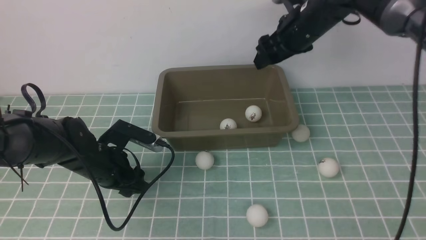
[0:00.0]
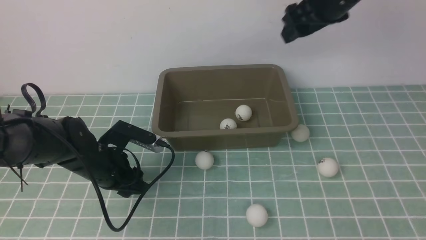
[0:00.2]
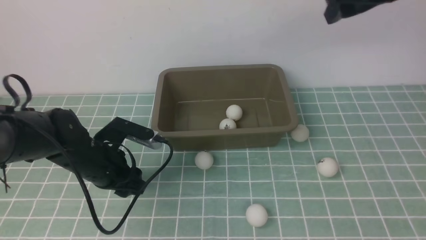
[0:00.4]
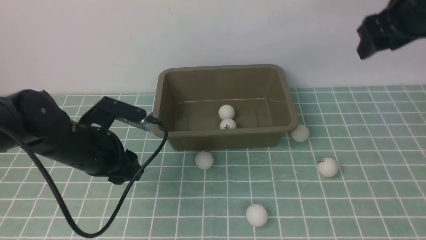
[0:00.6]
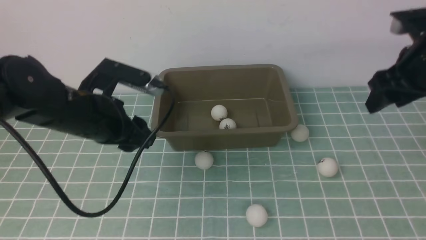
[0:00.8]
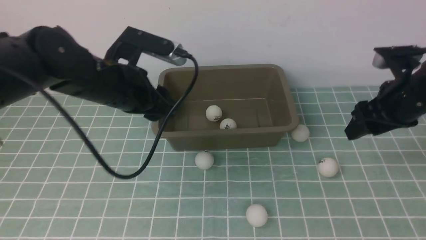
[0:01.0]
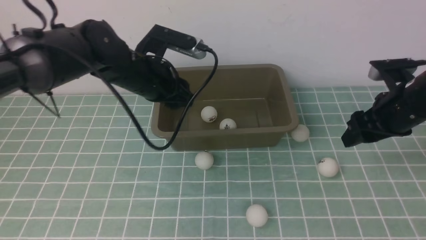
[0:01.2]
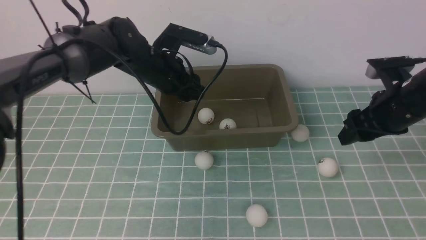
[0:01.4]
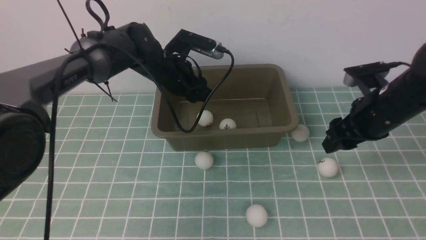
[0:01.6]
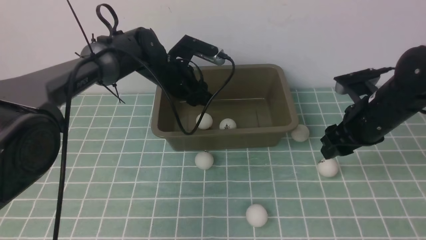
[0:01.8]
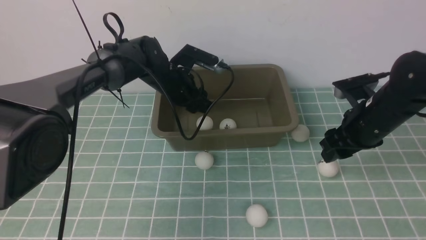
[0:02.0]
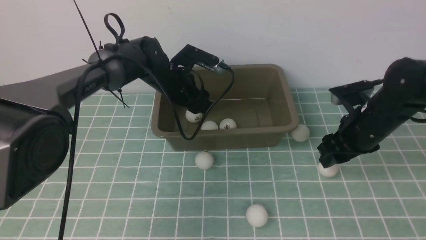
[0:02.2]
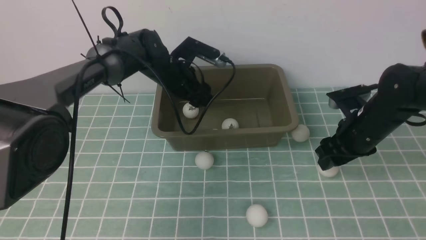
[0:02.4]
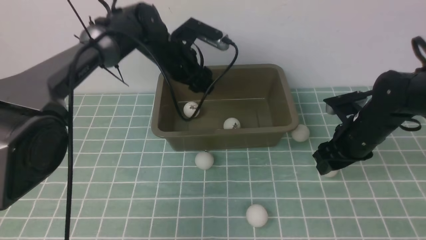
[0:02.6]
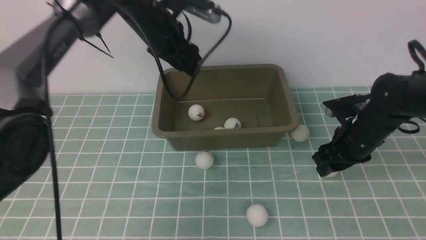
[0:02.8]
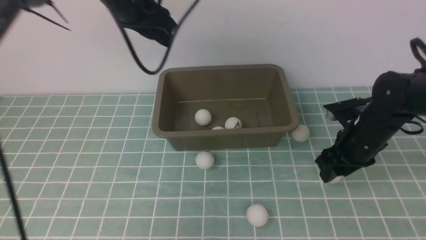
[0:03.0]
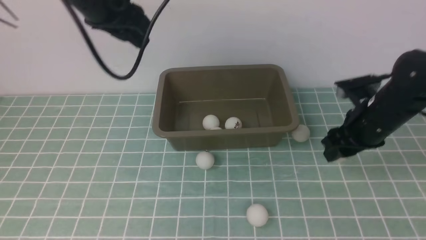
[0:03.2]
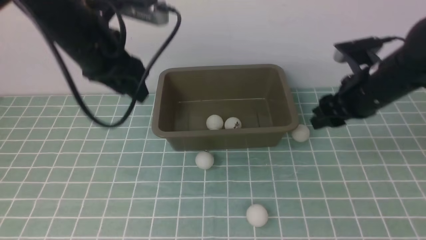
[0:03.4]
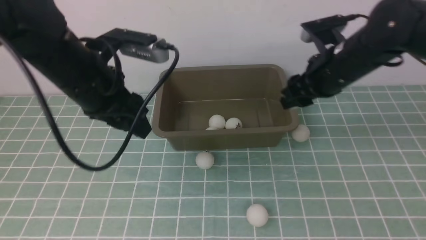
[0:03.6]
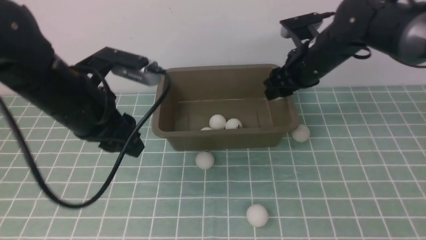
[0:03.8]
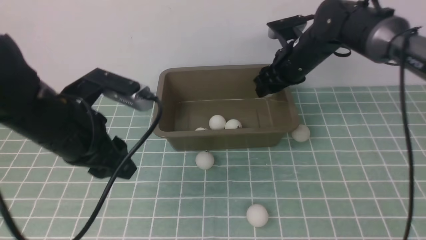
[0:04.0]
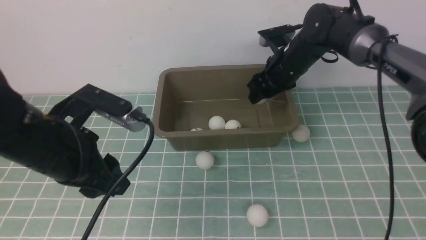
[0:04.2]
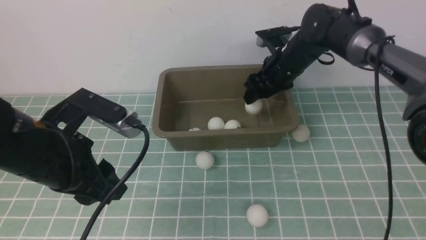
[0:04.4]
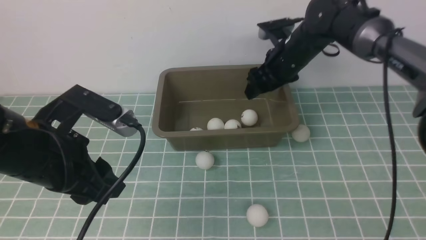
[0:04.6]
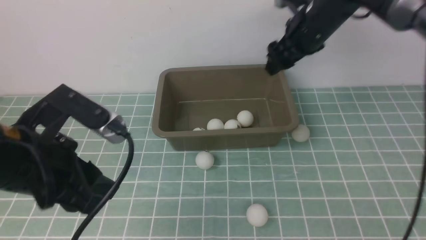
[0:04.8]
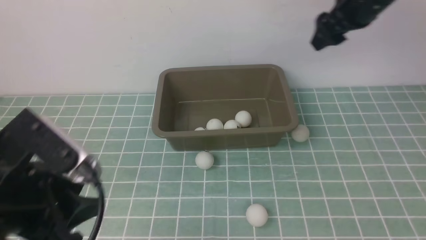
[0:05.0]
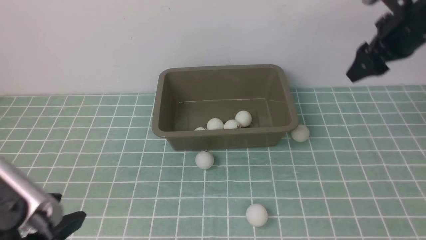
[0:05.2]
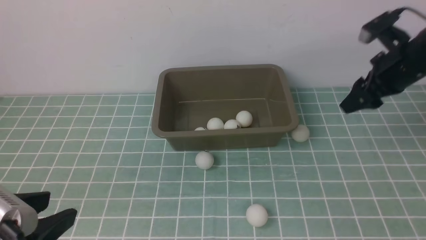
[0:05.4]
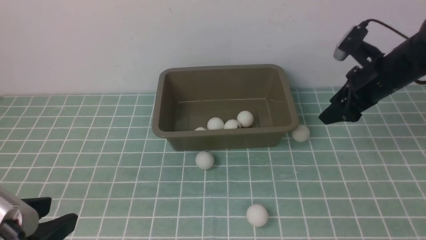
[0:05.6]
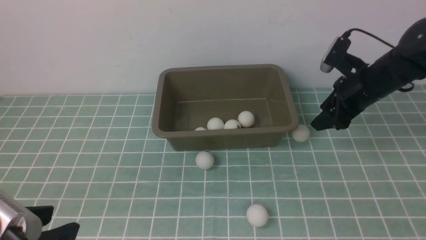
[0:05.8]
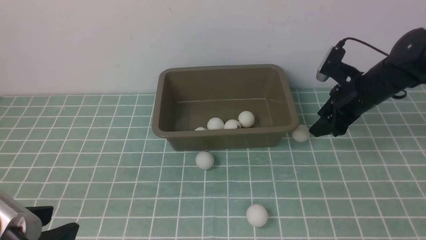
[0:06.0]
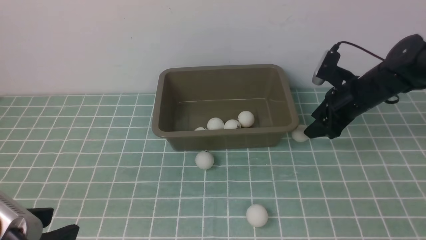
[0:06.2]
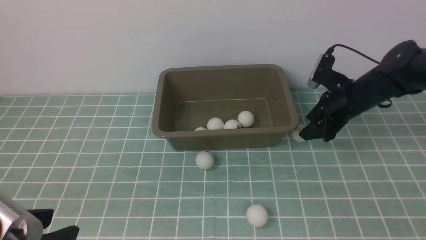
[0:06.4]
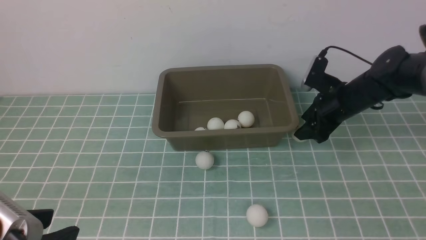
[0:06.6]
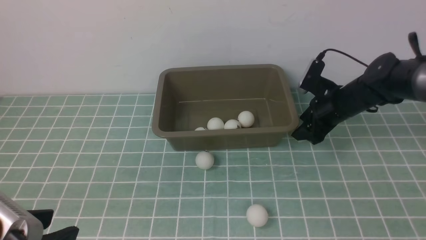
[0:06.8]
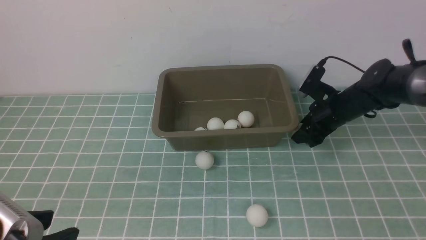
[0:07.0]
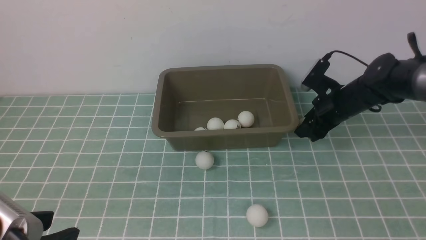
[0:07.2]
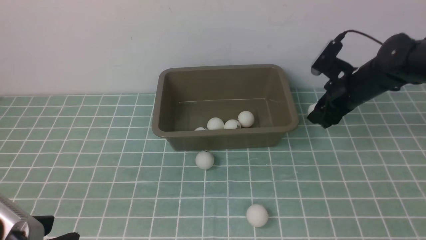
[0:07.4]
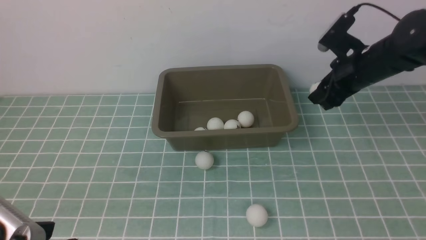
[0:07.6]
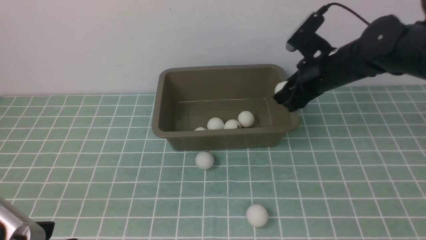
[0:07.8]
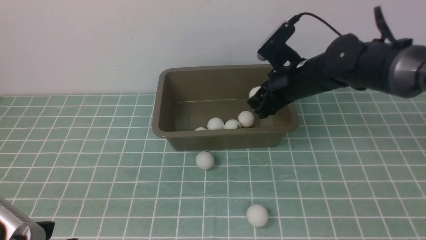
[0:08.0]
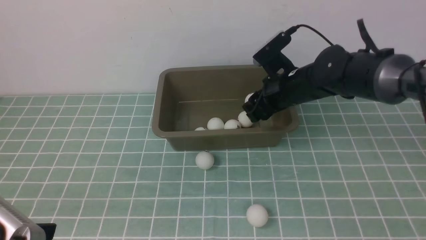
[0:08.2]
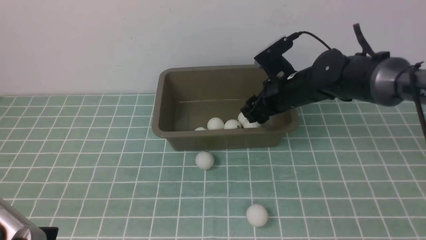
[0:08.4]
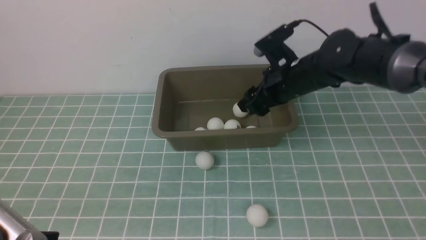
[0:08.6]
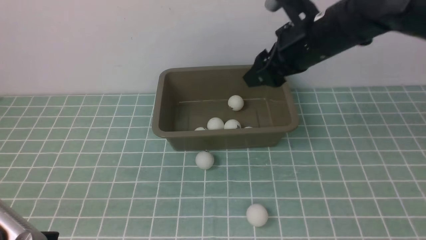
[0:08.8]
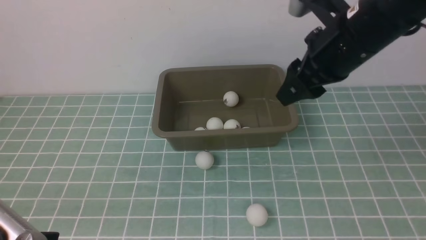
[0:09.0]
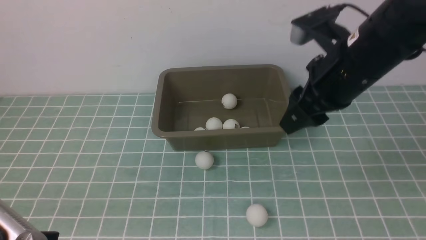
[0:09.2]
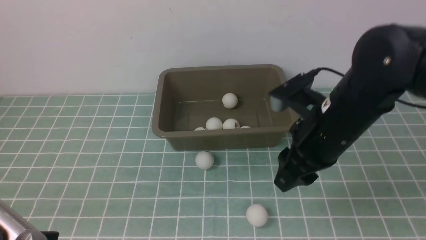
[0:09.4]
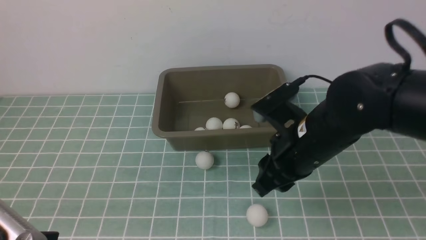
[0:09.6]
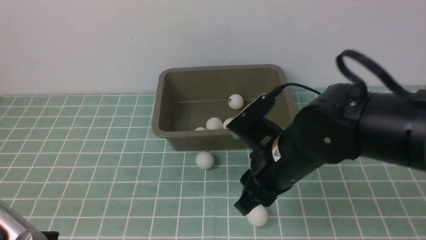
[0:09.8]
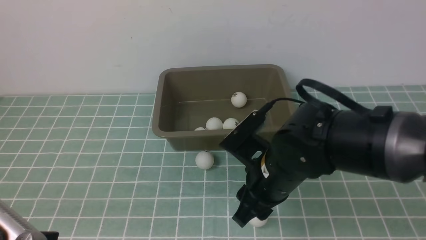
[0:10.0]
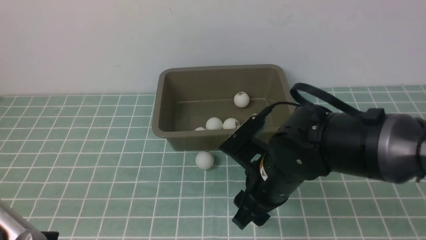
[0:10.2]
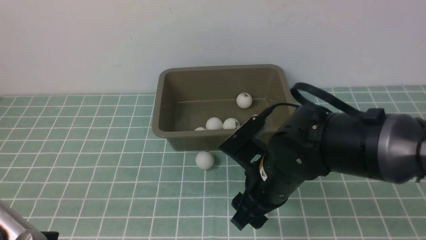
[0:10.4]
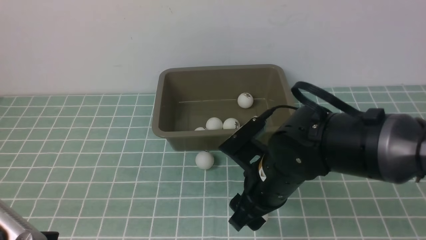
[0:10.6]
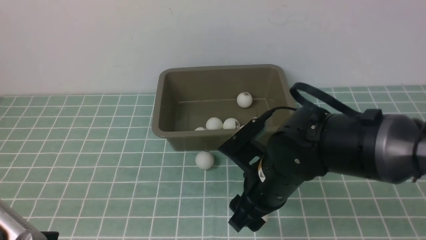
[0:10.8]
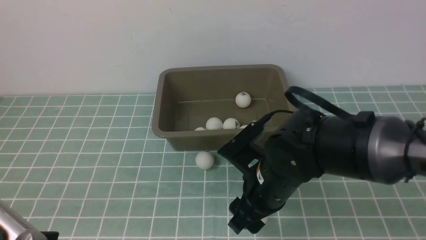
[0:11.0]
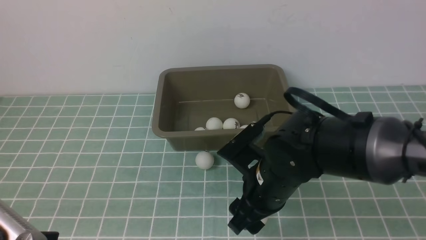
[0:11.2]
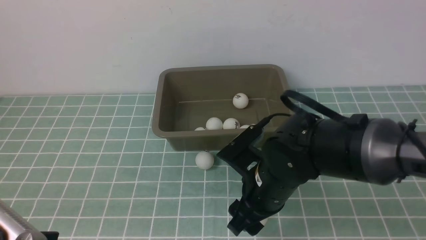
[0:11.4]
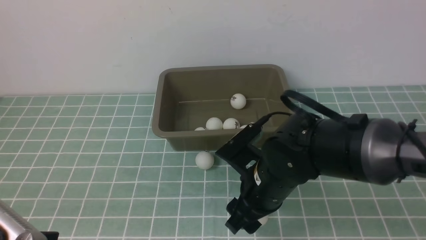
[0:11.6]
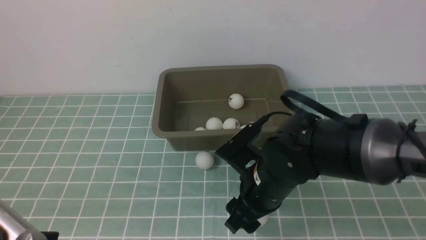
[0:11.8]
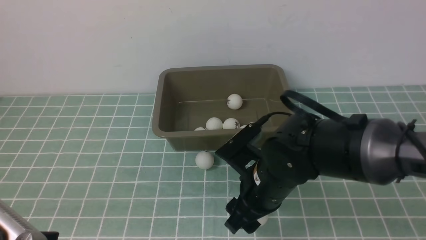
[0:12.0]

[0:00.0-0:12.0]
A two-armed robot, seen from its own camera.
Step, 0:00.0 to 0:00.6: use the left arm to clamp the table tennis ball closest to it.
Step, 0:00.8 to 0:02.4: use the left arm to put the table tennis ball into the box.
Step, 0:02.6 to 0:03.2: use the right arm to clamp the table tennis ball closest to it.
Step, 0:03.4 to 0:04.6: use the right arm to put the table tennis ball into the box.
Step, 0:04.8 to 0:07.4: use the right arm to clamp the table tennis ball closest to it.
Step, 0:07.6 to 0:08.6: use the right arm to put the table tennis ball into the box.
0:00.0 to 0:01.6: The left gripper moves forward and to the right, roughly 20 cm. Meanwhile the right gripper shifts some 20 cm downward.
0:01.6 to 0:03.0: The right gripper travels to the left, forward and upward by roughly 15 cm. Meanwhile the left gripper travels backward, upward and to the left by about 25 cm.
0:03.0 to 0:04.4: The left gripper is displaced backward by about 15 cm. Meanwhile the right gripper goes roughly 15 cm to the right and upward.
0:04.4 to 0:06.0: The right gripper is displaced downward by some 15 cm.
0:06.0 to 0:07.6: The right gripper shifts approximately 5 cm upward.
0:07.6 to 0:09.0: The right gripper is displaced upward, backward and to the left by some 15 cm.
0:09.0 to 0:10.4: The right gripper goes approximately 20 cm downward, backward and to the left.
0:10.4 to 0:12.0: The grippers make only small movements.

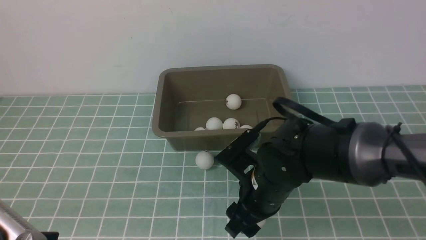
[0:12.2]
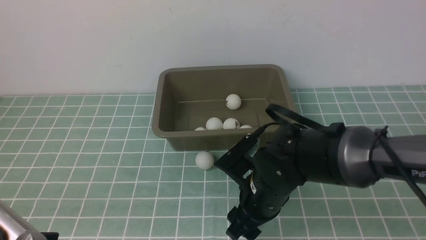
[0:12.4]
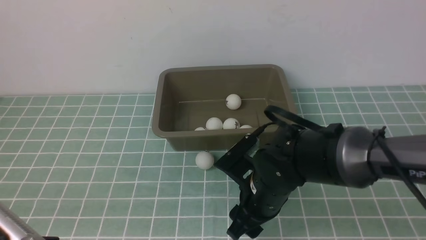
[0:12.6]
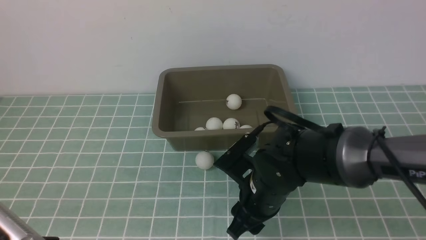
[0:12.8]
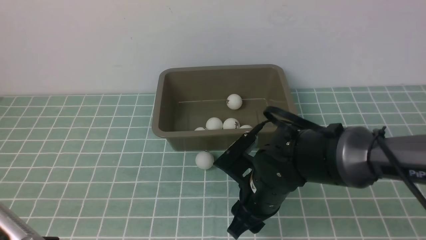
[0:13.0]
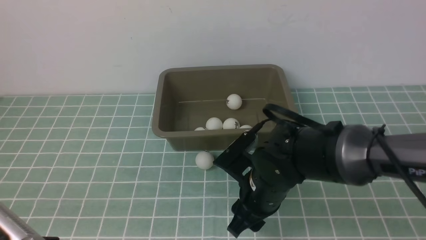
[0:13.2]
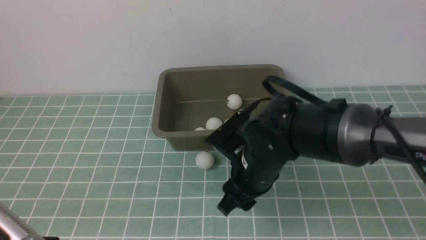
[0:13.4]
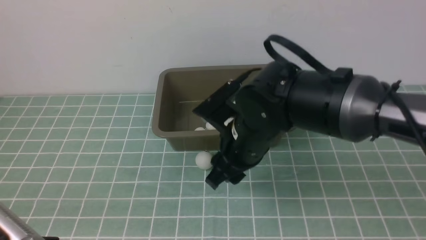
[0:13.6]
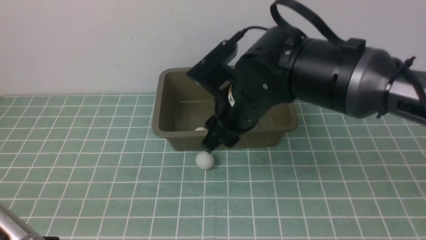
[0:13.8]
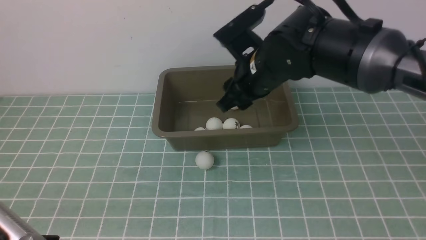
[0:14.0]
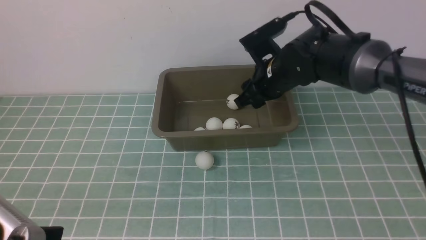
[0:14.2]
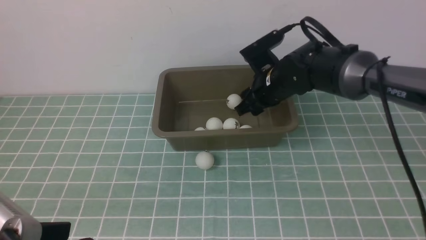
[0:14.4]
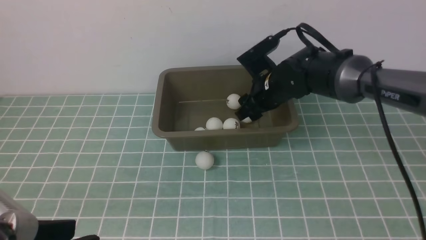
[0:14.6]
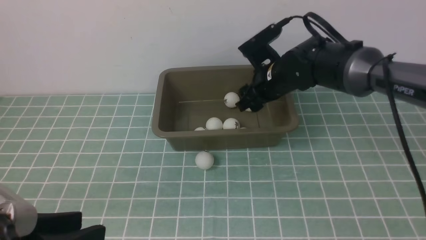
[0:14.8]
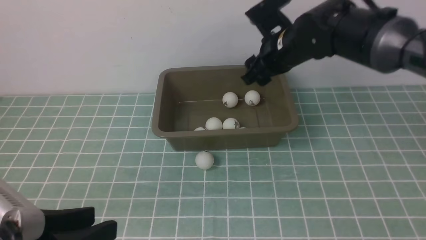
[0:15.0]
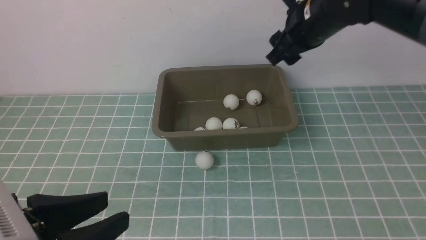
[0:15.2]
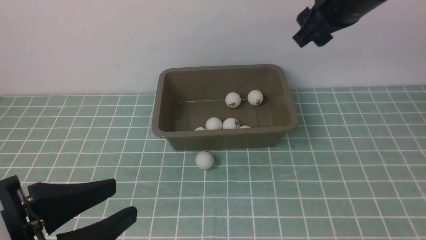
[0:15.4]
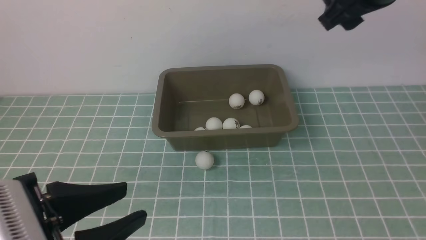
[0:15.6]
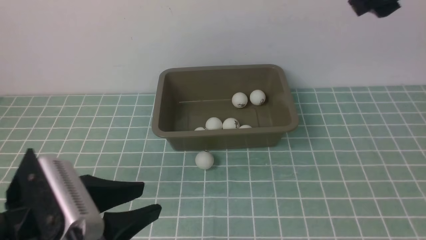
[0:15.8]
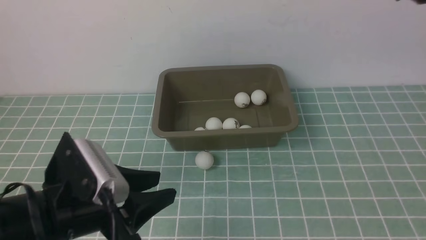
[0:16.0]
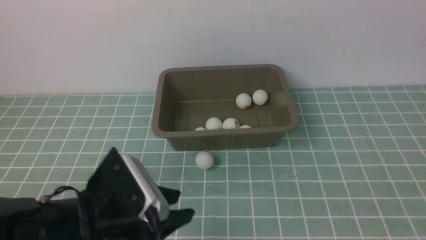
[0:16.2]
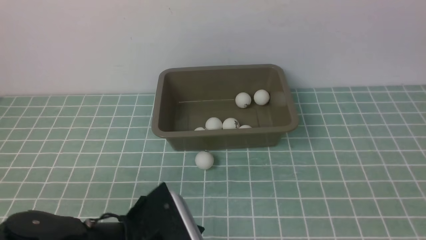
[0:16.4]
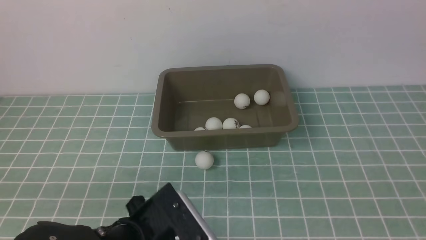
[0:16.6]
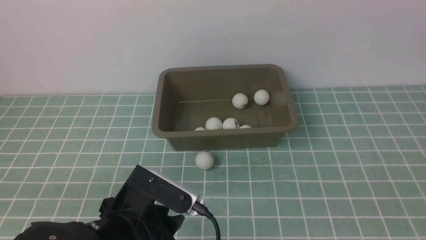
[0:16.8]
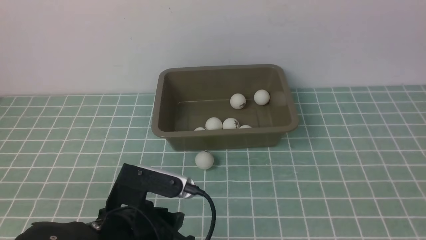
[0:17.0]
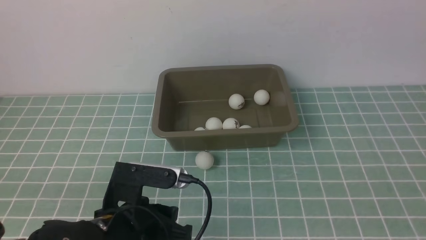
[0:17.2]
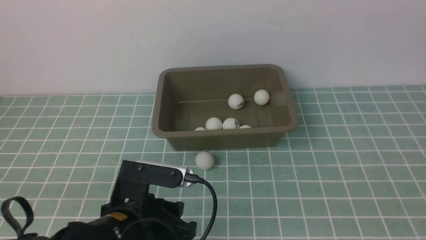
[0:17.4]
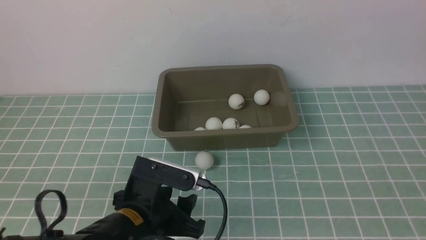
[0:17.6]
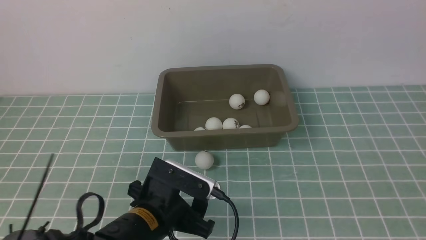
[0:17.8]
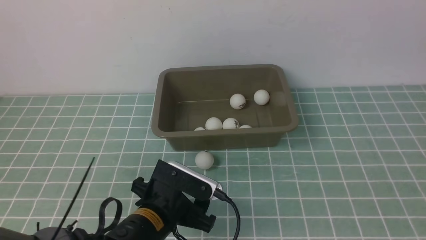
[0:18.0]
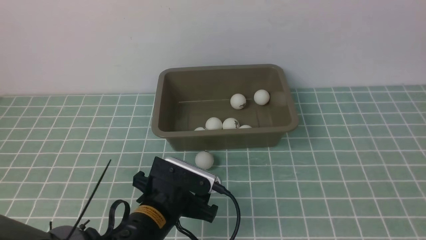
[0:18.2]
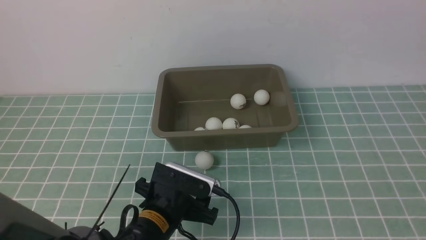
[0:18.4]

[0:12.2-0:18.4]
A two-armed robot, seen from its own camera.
Step, 0:13.8 to 0:14.6: use the right arm to put the table tennis ball into the box.
0:12.2 to 0:13.8: The right gripper travels forward and upward by roughly 15 cm.
0:13.8 to 0:15.4: The left gripper moves forward, roughly 10 cm. Meanwhile the right gripper shifts about 30 cm upward, to the right and backward.
0:15.4 to 0:16.8: The left gripper goes roughly 10 cm downward and to the right.
0:16.8 to 0:18.4: The left gripper is displaced downward and forward by about 10 cm.
